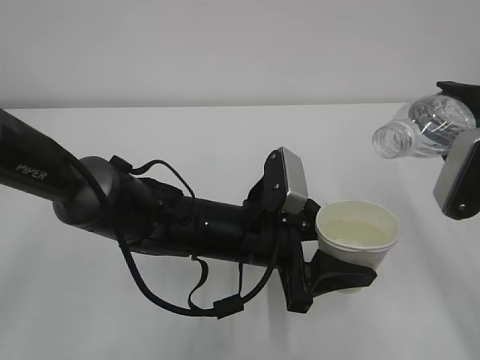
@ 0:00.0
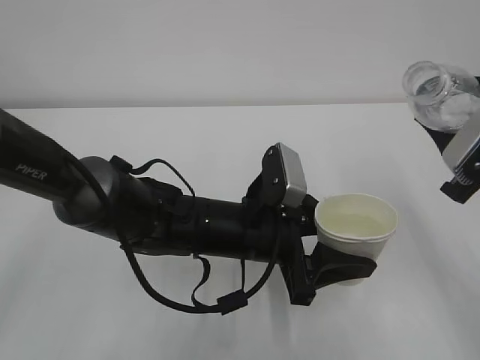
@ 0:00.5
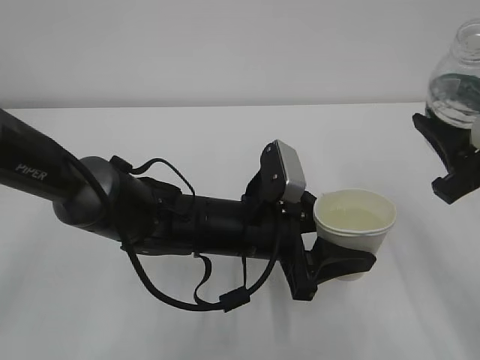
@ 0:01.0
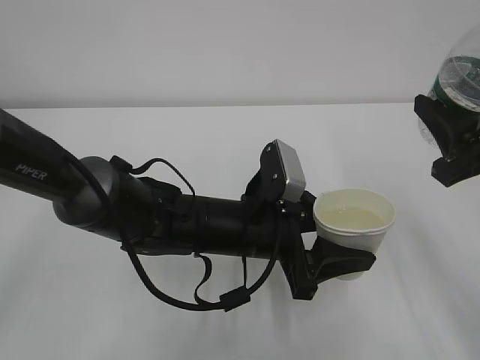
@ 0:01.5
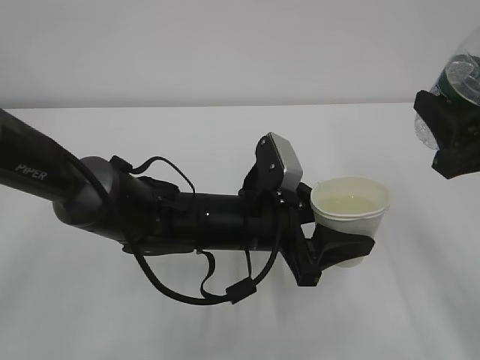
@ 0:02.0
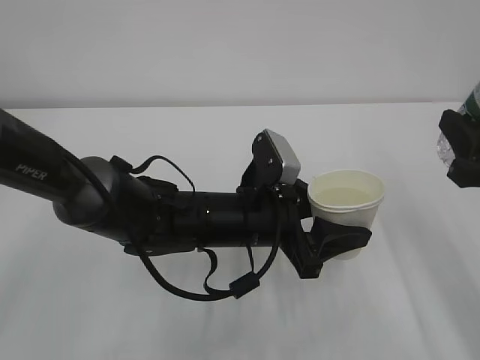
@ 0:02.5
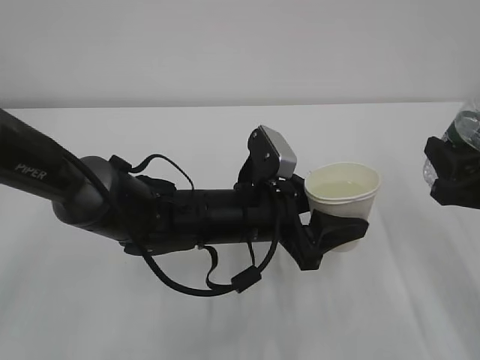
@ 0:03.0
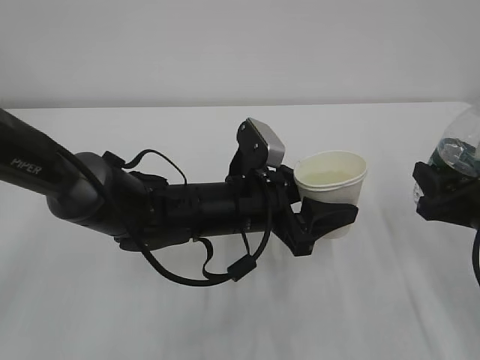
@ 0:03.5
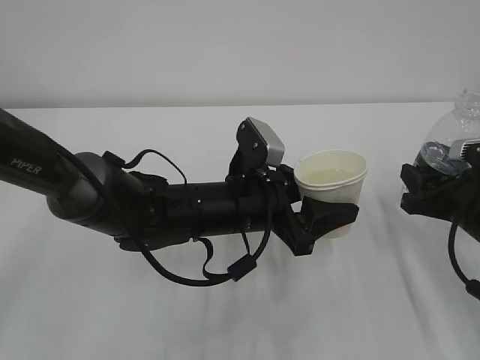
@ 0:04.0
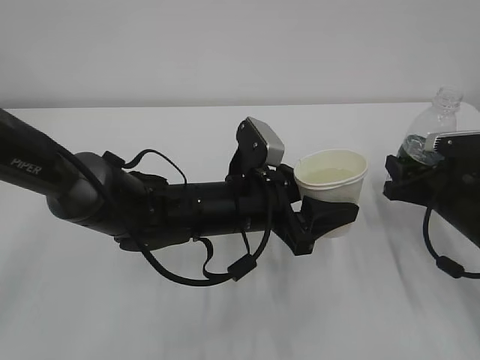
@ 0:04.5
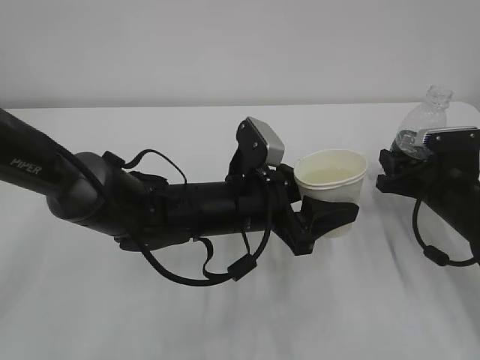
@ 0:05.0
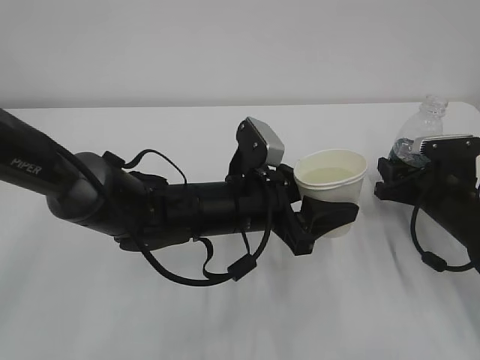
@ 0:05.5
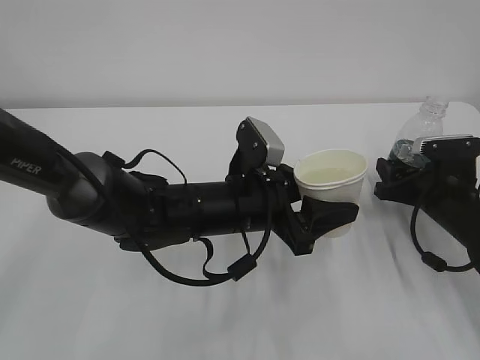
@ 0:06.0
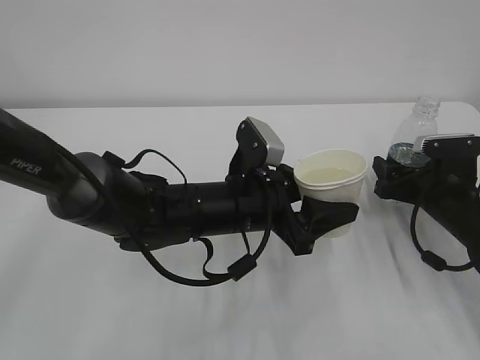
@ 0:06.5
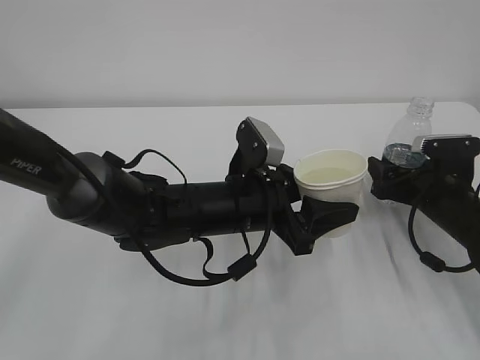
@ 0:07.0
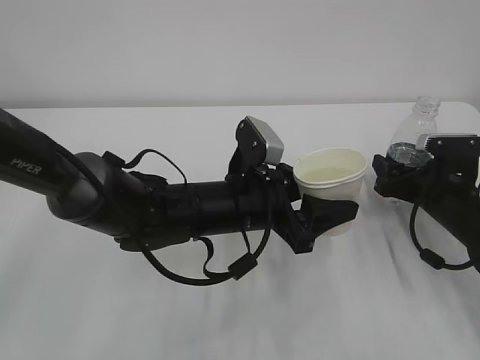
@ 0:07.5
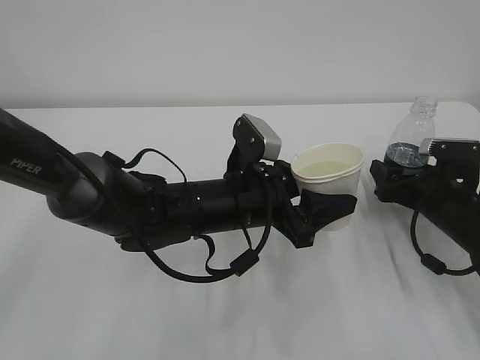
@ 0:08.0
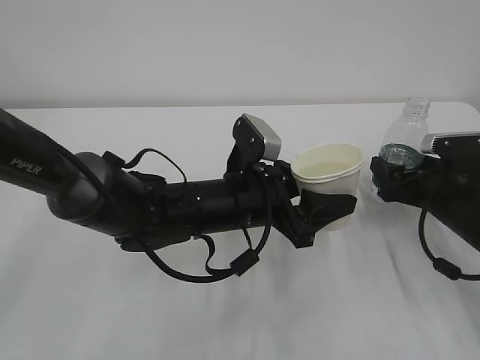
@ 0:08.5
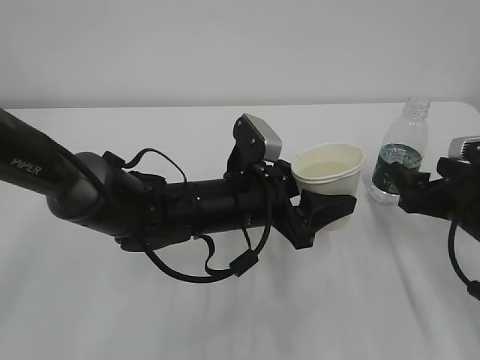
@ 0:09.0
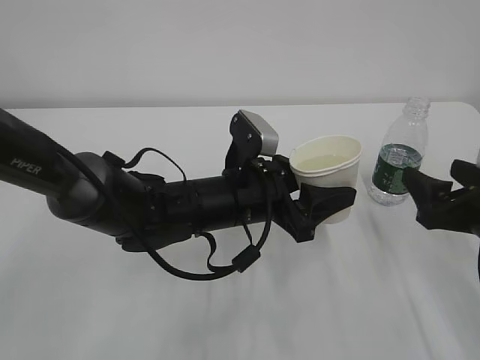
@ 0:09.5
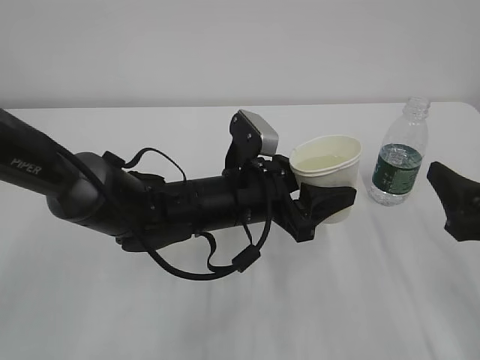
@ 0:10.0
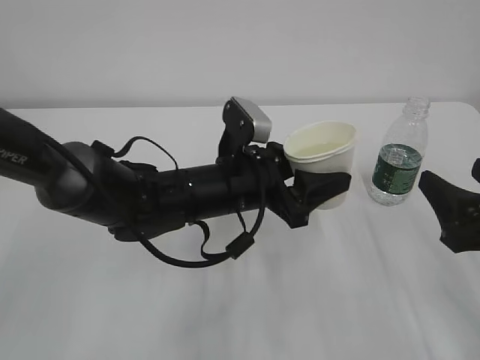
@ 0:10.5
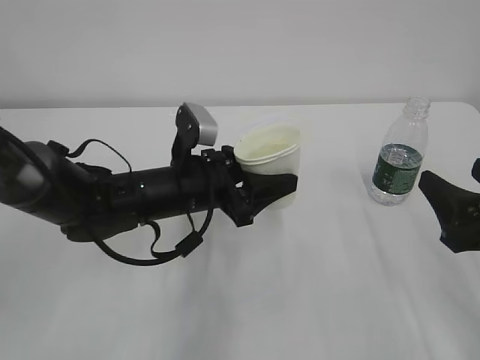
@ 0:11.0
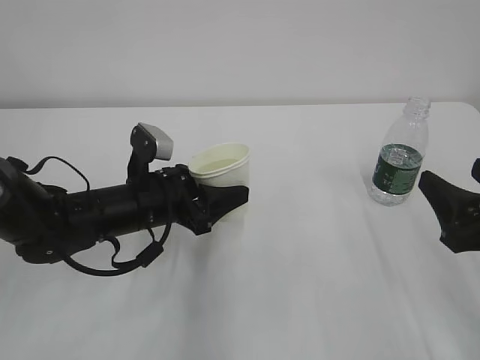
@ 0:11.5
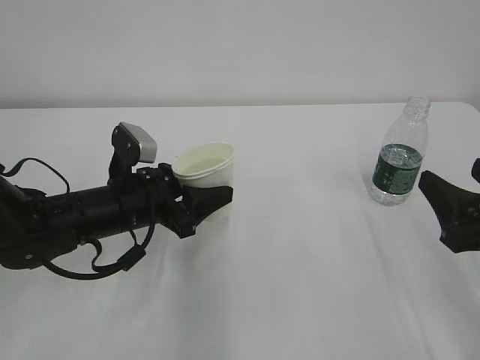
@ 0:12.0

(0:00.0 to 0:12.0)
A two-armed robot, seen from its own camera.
0:02.0 - 0:04.0: The right gripper is displaced downward and forward by roughly 15 cm.
0:04.0 - 0:06.0: The right gripper shifts about 5 cm forward.
0:06.0 - 0:08.0: The right gripper opens its fingers.
0:08.0 - 0:10.0: The right gripper is displaced backward and upward by approximately 20 cm.
0:10.0 - 0:12.0: The left gripper goes about 15 cm to the left.

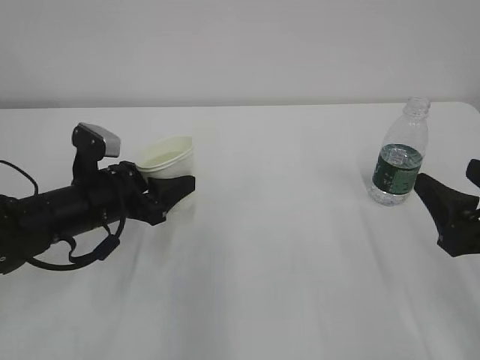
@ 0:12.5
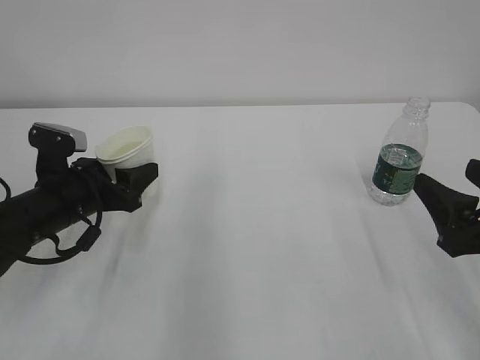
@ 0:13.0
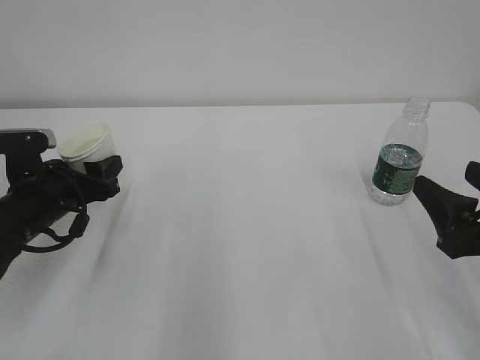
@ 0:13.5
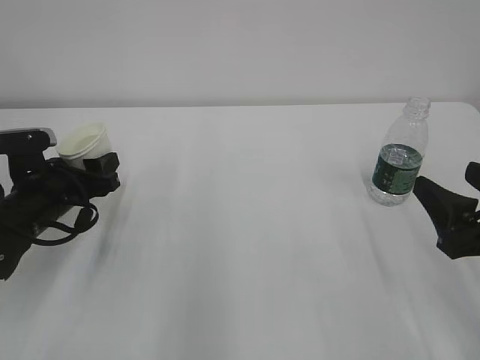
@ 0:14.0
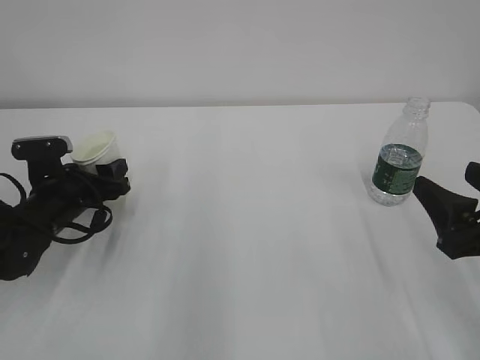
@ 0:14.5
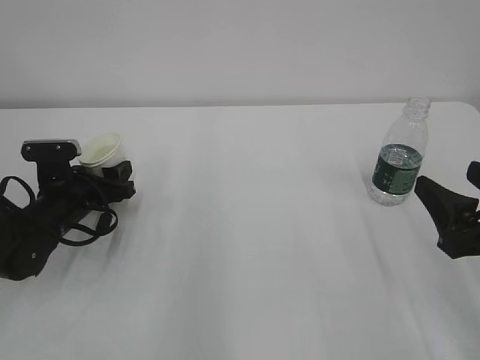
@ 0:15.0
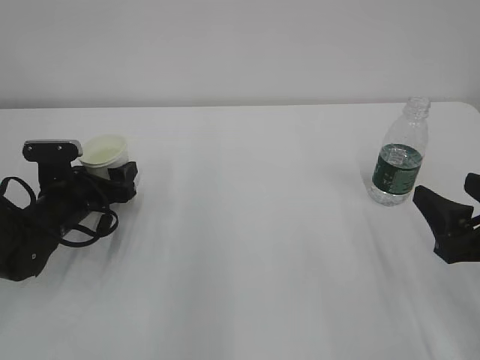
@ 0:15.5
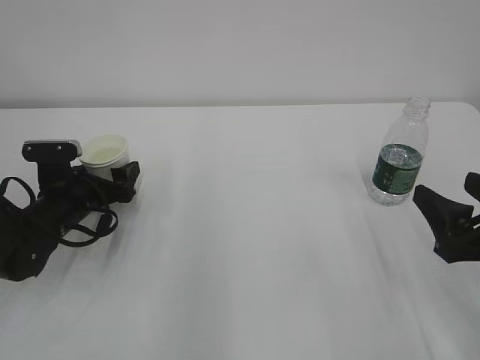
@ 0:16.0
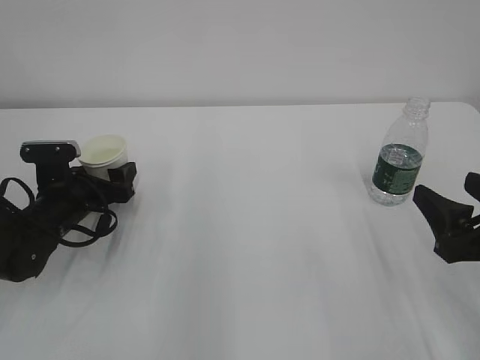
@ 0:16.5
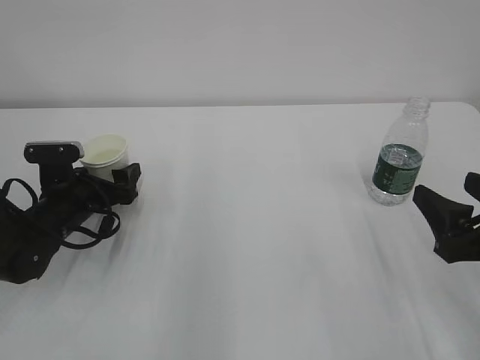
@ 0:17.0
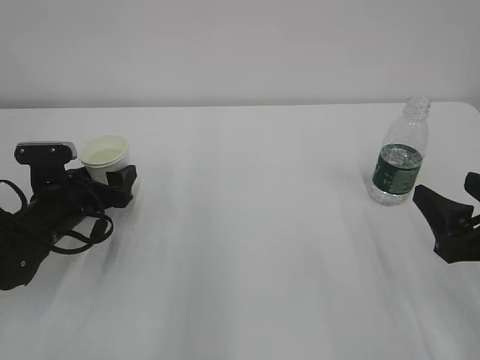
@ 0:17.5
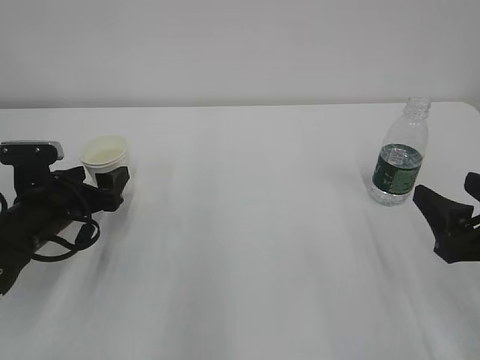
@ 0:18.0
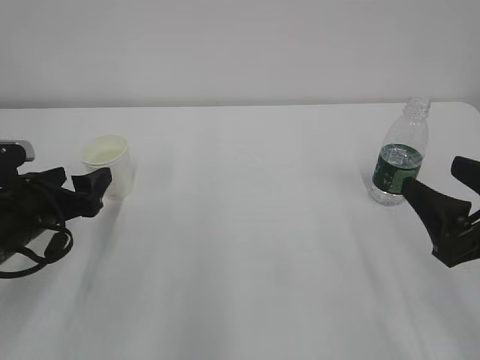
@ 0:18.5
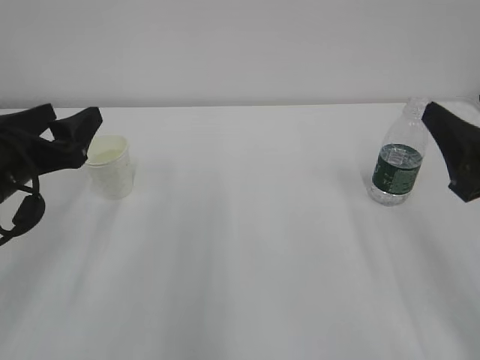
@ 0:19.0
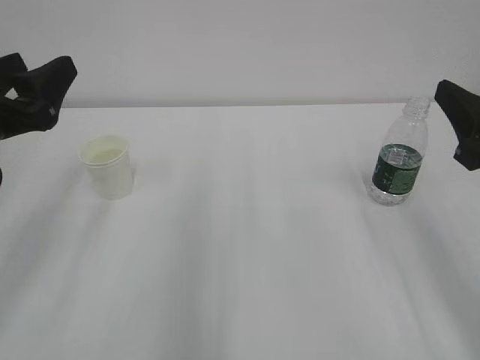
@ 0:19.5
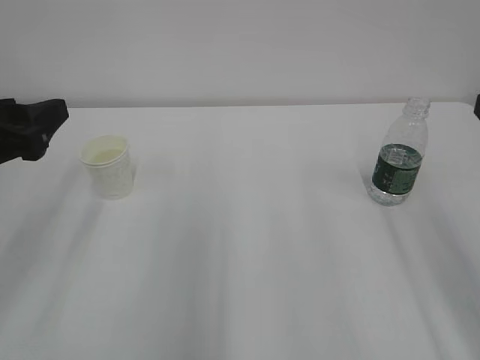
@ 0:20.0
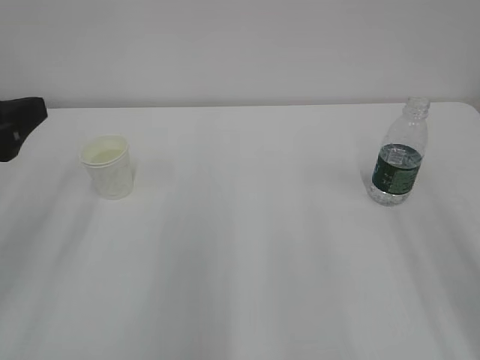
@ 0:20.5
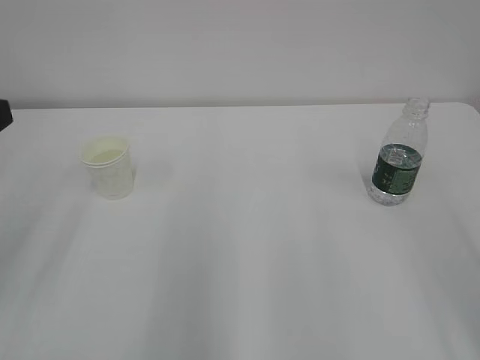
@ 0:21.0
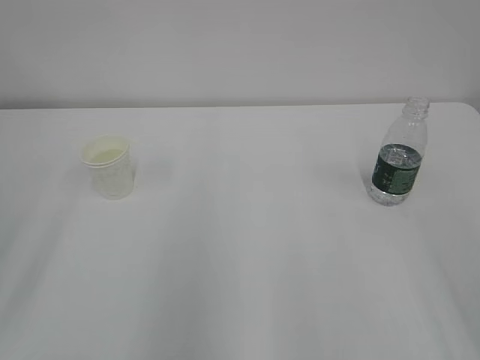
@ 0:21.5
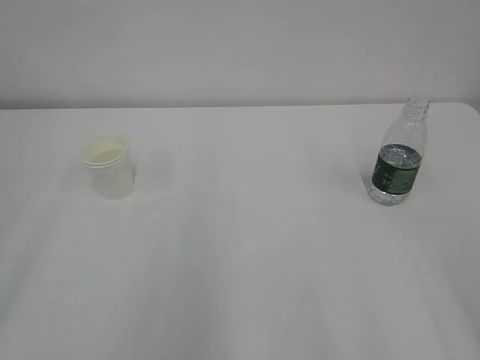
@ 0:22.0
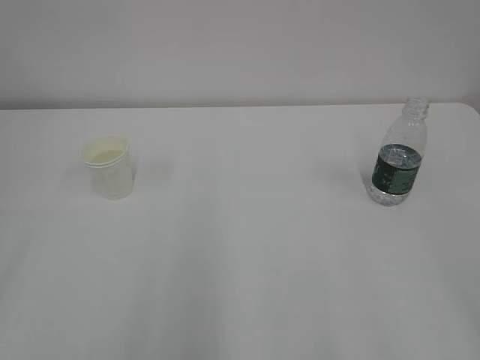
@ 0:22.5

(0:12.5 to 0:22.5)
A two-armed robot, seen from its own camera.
0:12.5 - 0:14.5: The left gripper travels to the left by some 5 cm.
0:14.5 - 0:16.5: The left gripper opens.
0:16.5 - 0:18.5: The left gripper travels backward and upward by approximately 10 cm.
0:18.5 - 0:20.5: The right gripper is displaced upward by roughly 10 cm, and closes up; the left gripper shifts some 15 cm upward and backward.
0:20.5 - 0:22.5: The left gripper is displaced backward by about 20 cm.

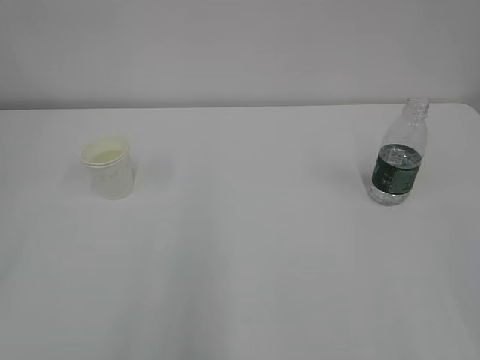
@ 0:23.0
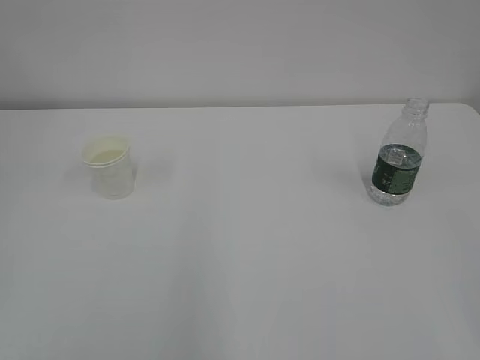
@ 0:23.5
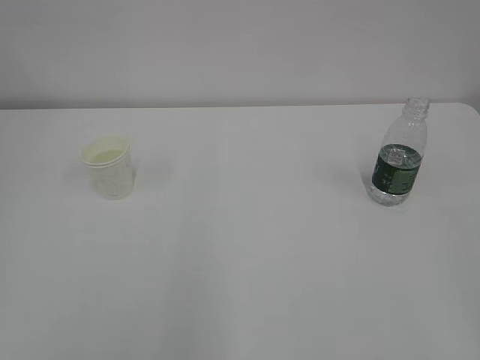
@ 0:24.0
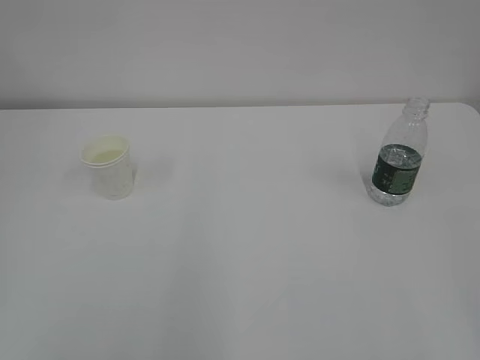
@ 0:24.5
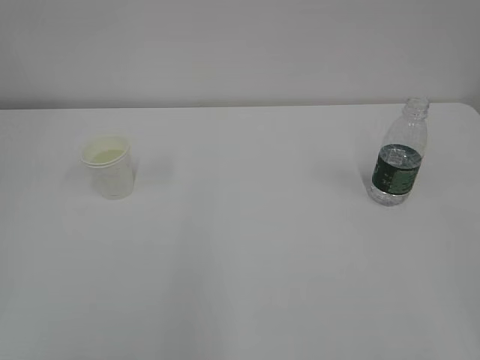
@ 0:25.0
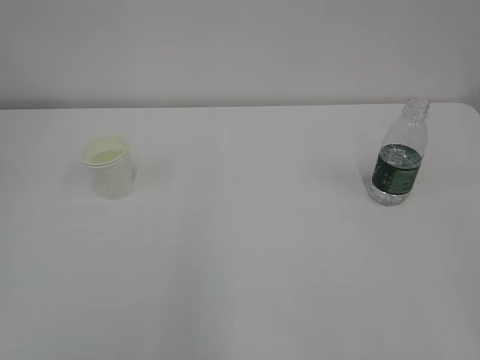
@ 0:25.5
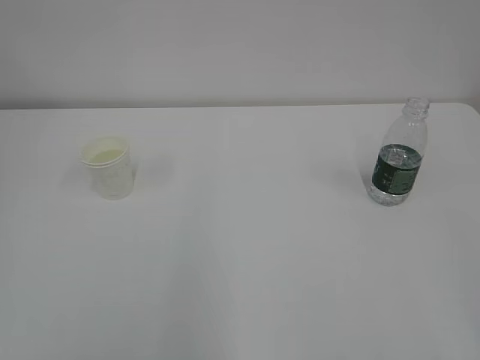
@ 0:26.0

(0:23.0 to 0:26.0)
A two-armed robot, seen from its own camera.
0:24.5 - 0:26.0: The two grippers keep their place.

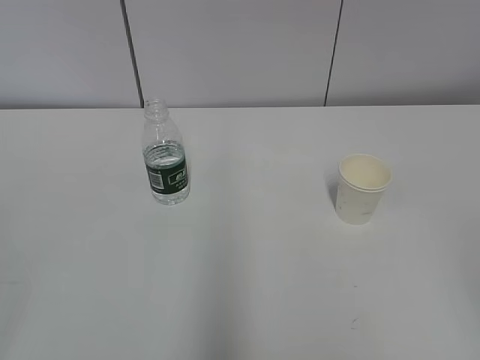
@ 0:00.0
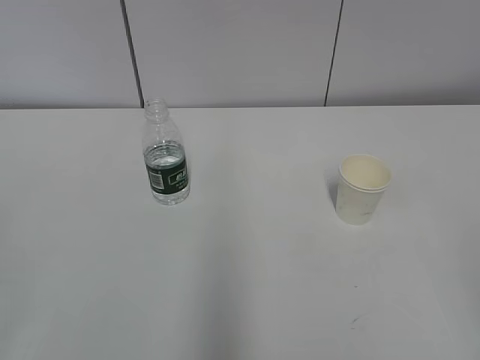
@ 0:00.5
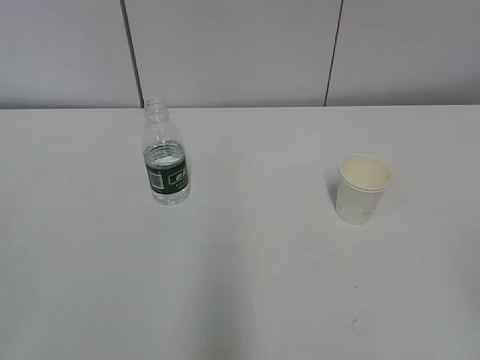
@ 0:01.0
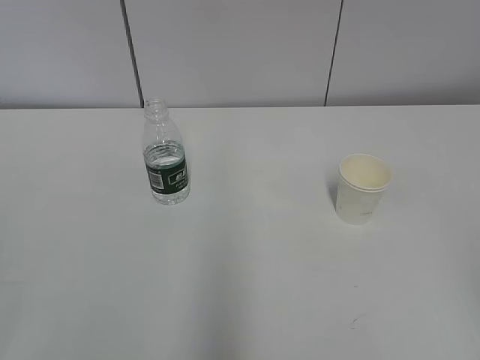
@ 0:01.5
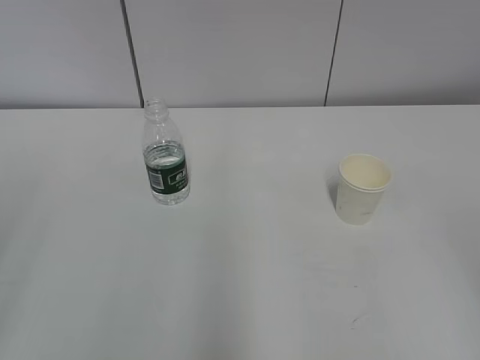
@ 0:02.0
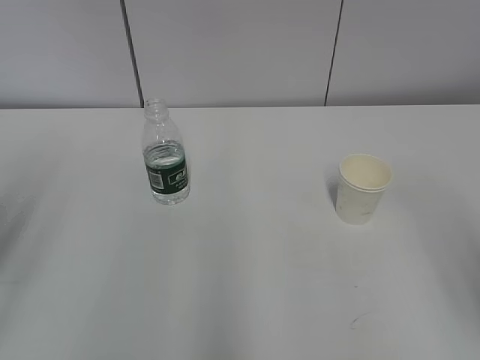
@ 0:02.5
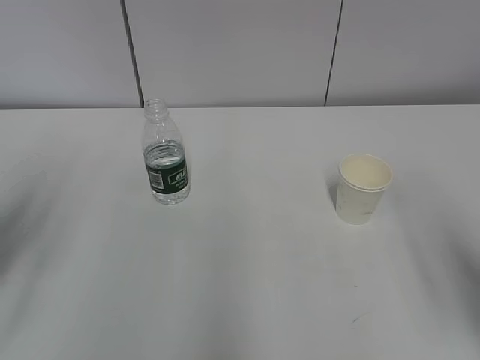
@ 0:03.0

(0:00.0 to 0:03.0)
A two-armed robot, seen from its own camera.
0:01.5 - 0:03.0: The right gripper goes about 10 cm forward; the left gripper moves forward, approximately 20 cm.
